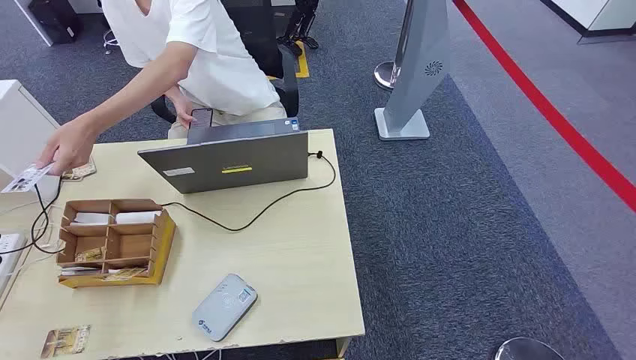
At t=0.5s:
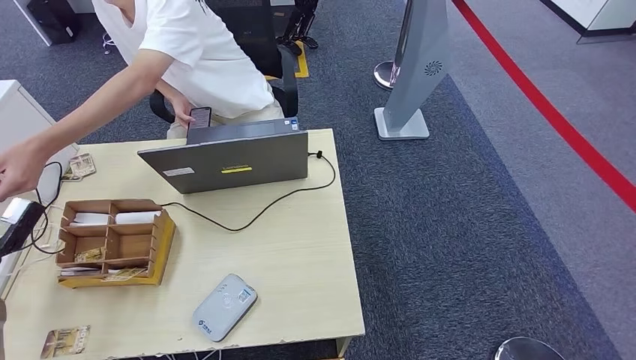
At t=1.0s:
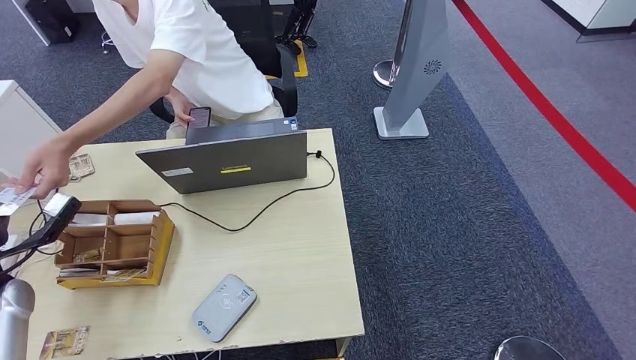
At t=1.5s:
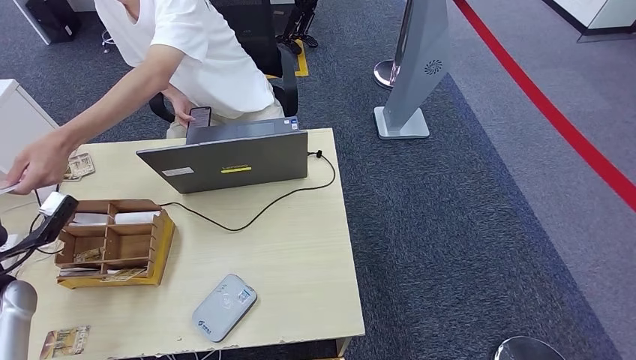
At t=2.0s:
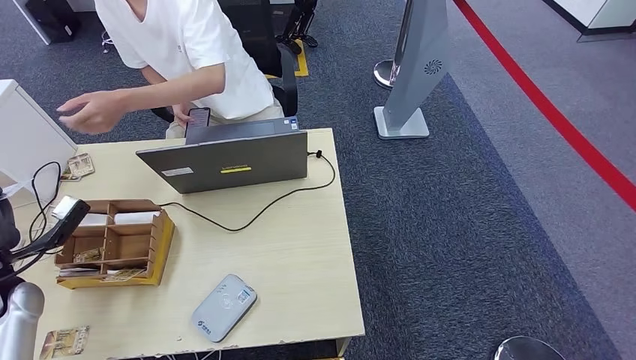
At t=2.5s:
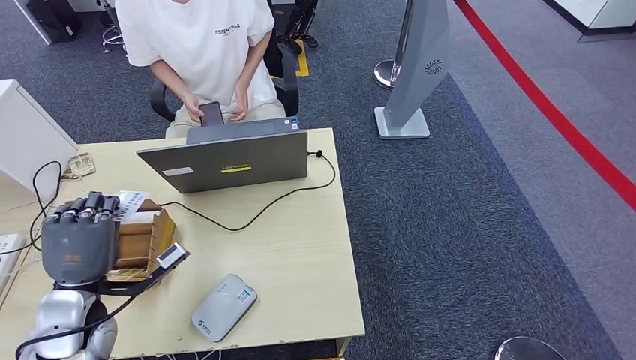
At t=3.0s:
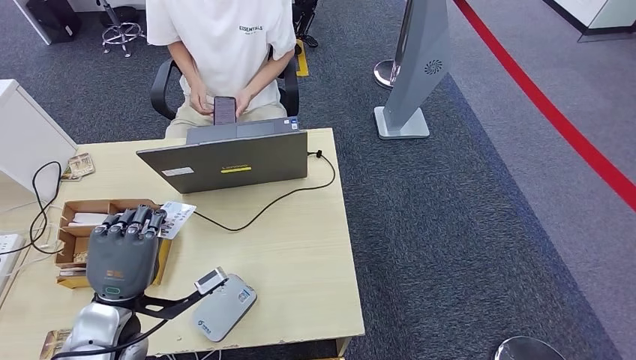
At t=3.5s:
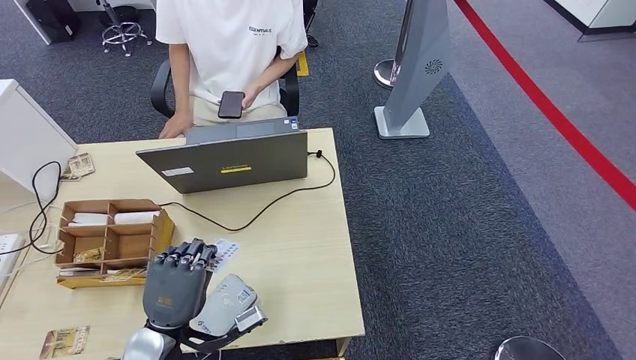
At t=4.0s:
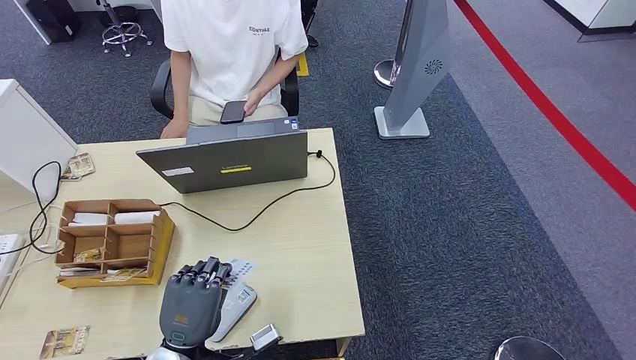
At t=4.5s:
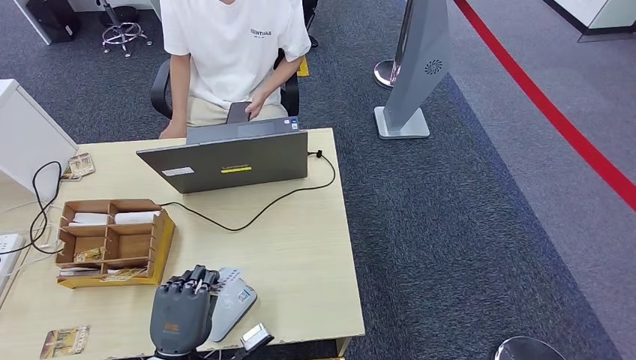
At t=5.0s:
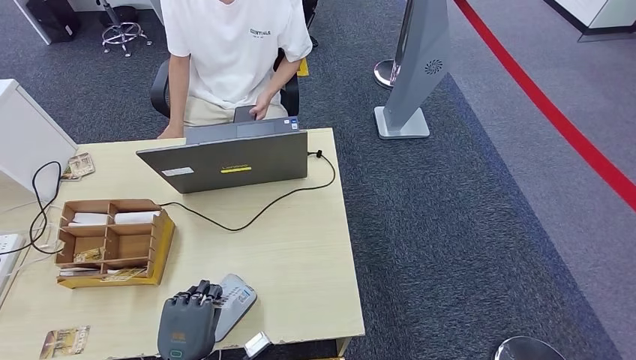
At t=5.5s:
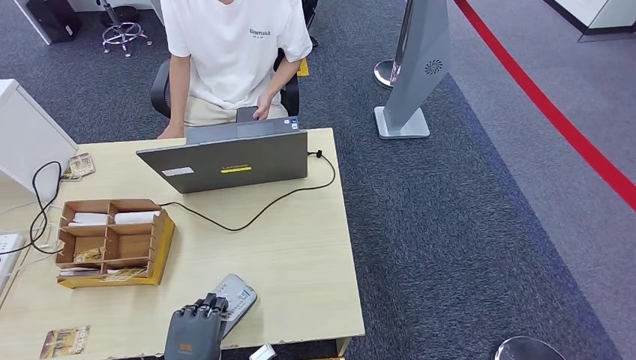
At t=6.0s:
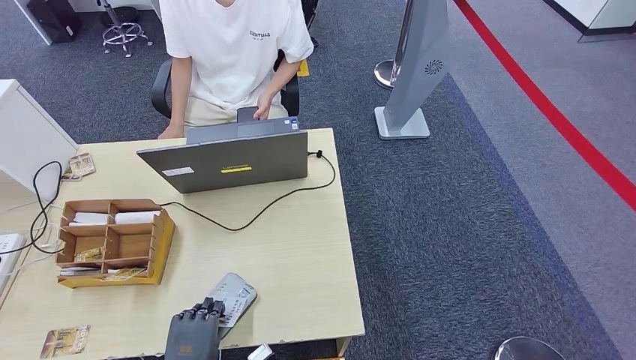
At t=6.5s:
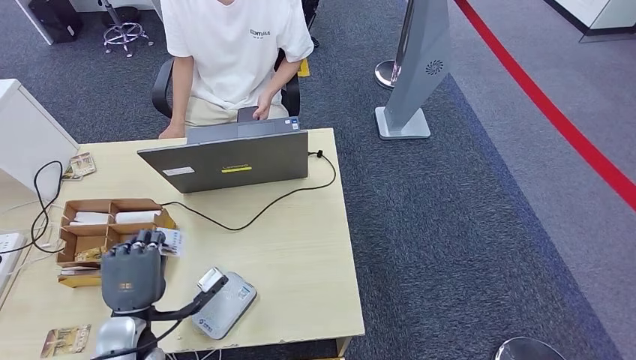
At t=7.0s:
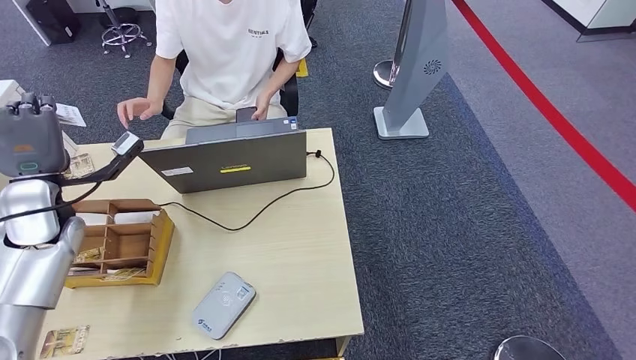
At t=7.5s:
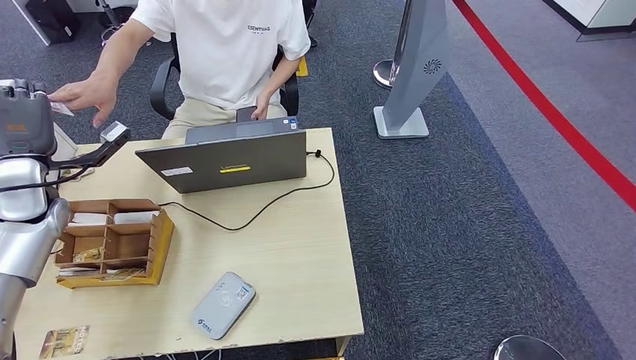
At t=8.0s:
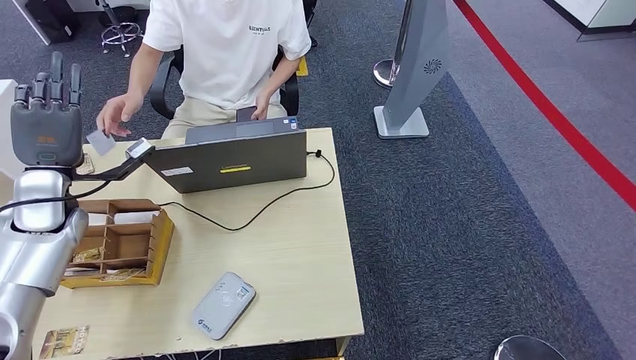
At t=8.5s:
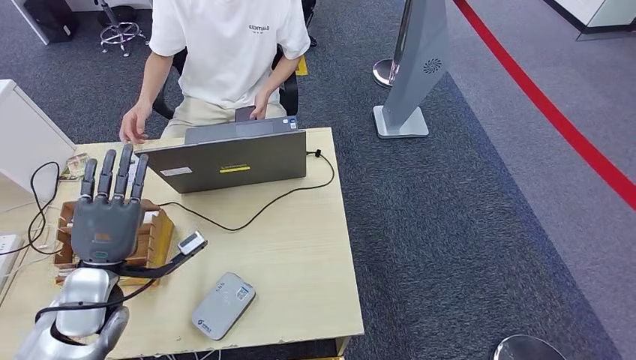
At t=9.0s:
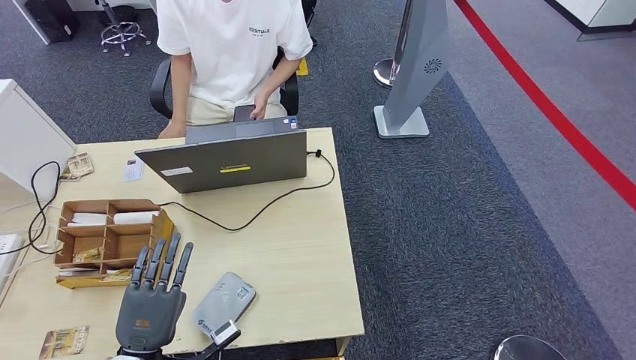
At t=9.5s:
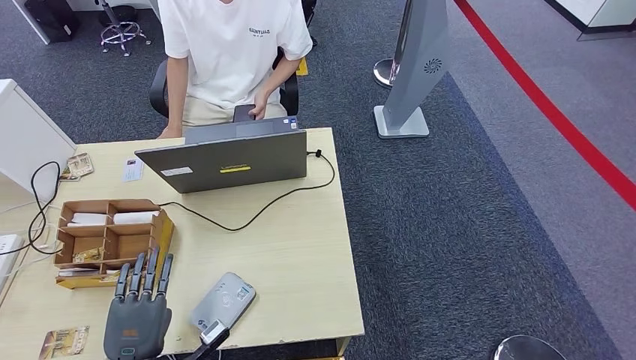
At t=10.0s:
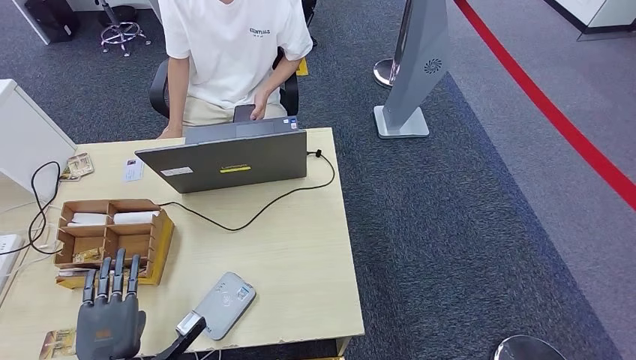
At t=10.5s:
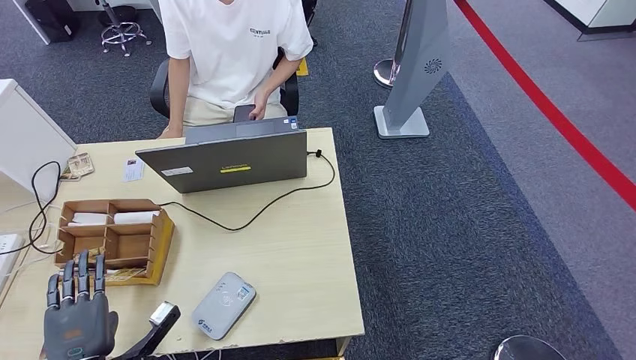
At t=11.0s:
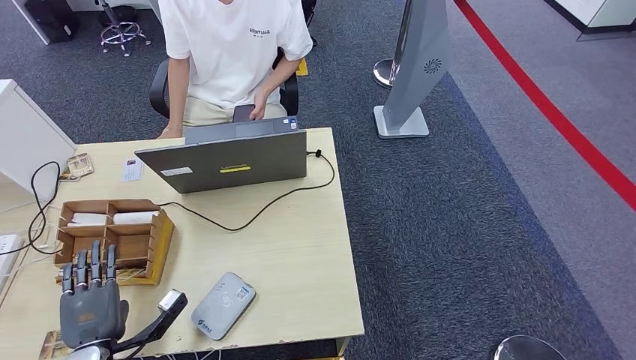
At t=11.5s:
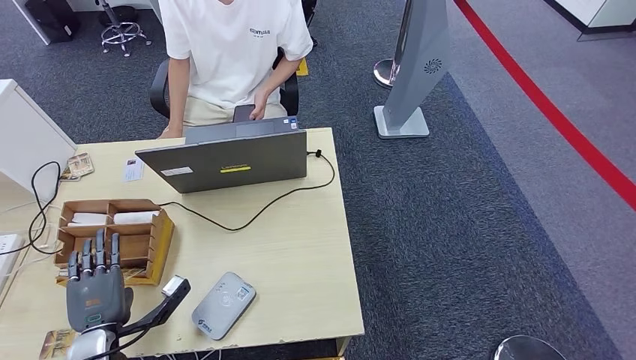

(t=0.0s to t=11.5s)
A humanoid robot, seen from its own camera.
Step, t=0.0s - t=2.0s: Take the ID card from the person's hand.
Step, t=2.5s - t=6.5s: Place the ID card on the card reader.
Step, t=7.0s - t=8.0s: Hand the ID card to the person.
t=2.0s - t=4.0s: The left hand moves to the right and backward, approximately 30 cm.
t=4.0s - t=6.0s: The left hand moves downward, about 10 cm.
t=6.0s - t=7.5s: The left hand shifts some 40 cm forward, upward and to the left.
t=7.5s - t=9.5s: The left hand moves backward, downward and to the right, approximately 35 cm.
t=9.5s - t=11.5s: The left hand heads forward, covering roughly 5 cm.

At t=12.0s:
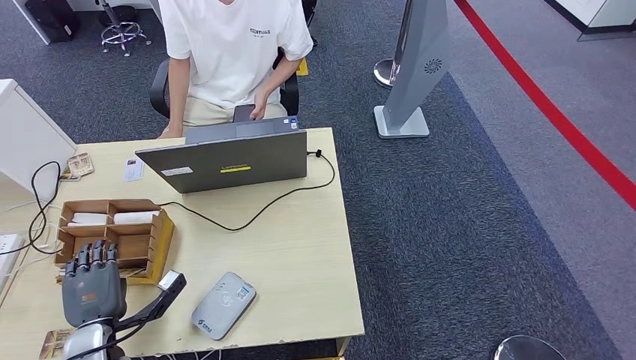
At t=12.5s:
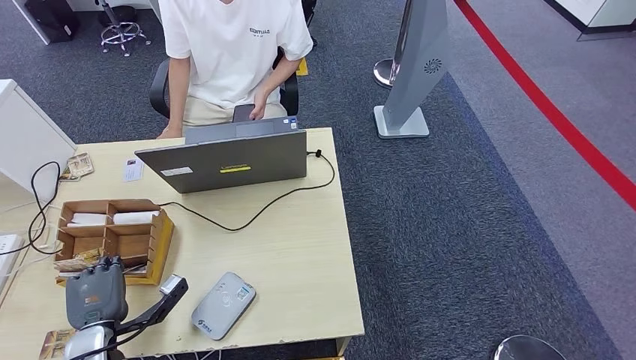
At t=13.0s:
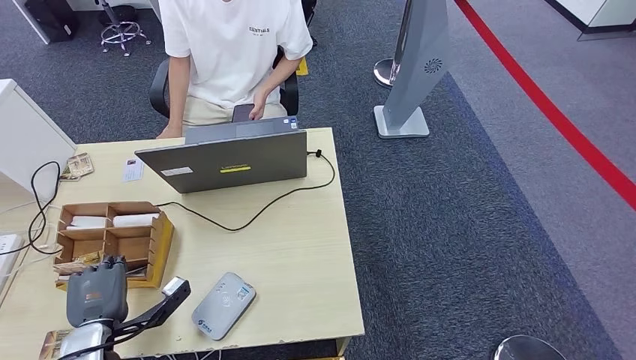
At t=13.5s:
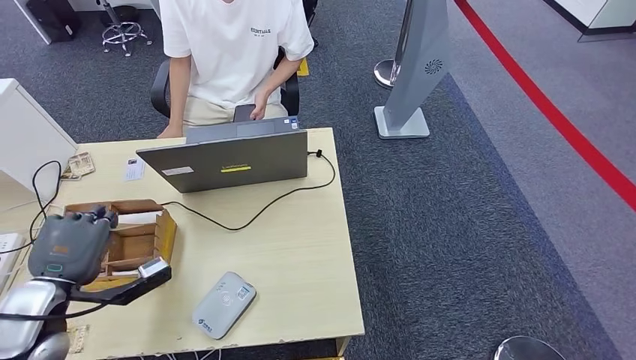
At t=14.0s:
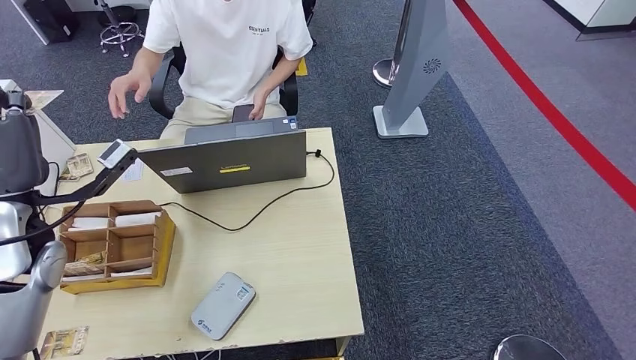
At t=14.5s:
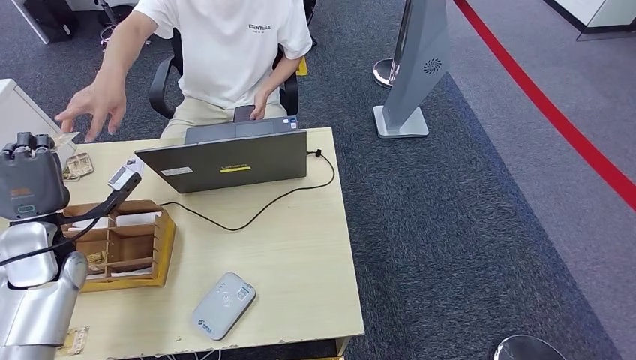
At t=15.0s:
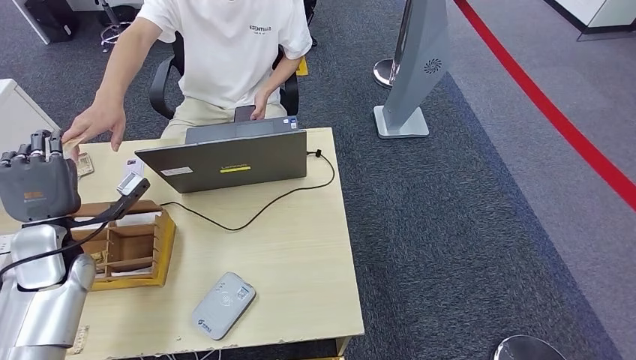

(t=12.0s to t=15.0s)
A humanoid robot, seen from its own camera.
Step, t=13.5s - t=15.0s: Hand the room key to the person.
t=12.0s - t=13.5s: The left hand moves upward, roughly 10 cm.
t=13.5s - t=15.0s: The left hand goes approximately 10 cm forward.
